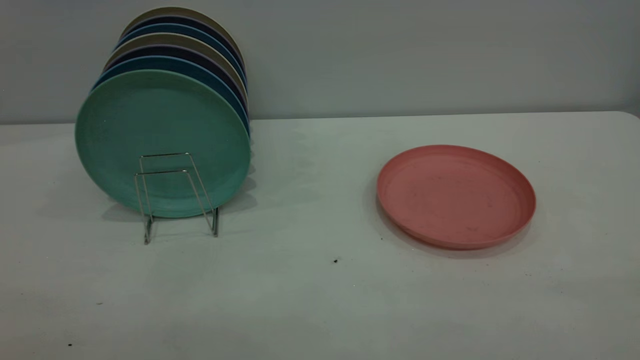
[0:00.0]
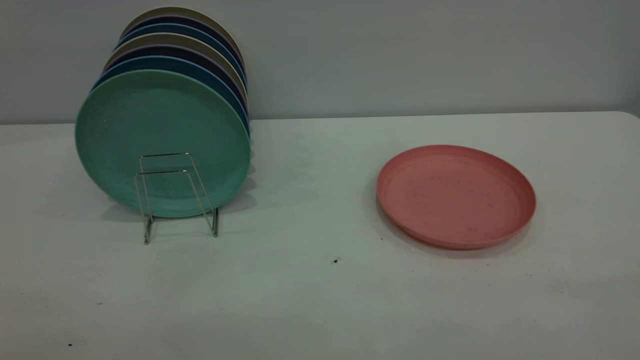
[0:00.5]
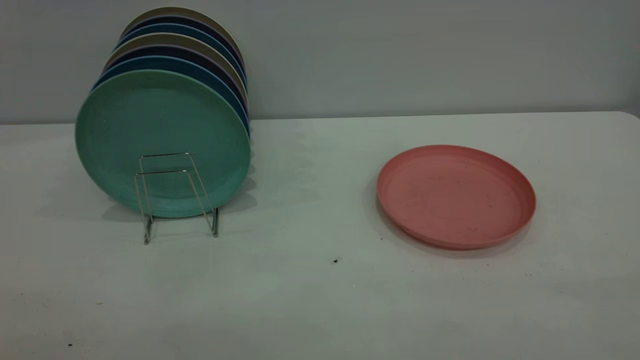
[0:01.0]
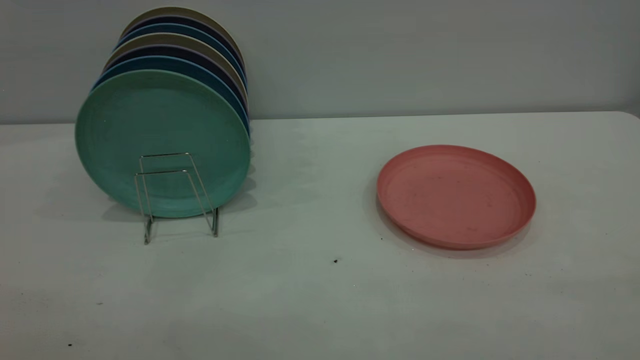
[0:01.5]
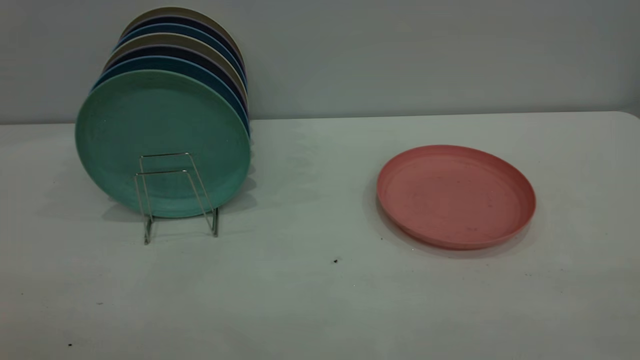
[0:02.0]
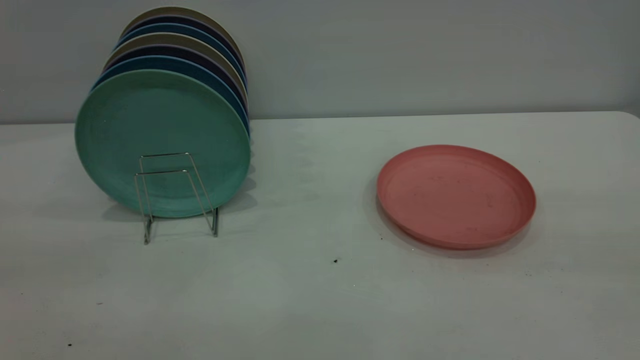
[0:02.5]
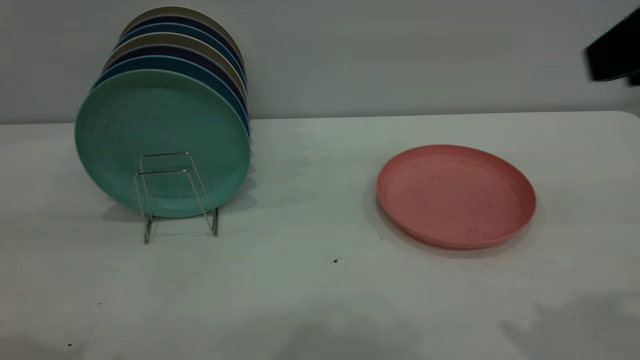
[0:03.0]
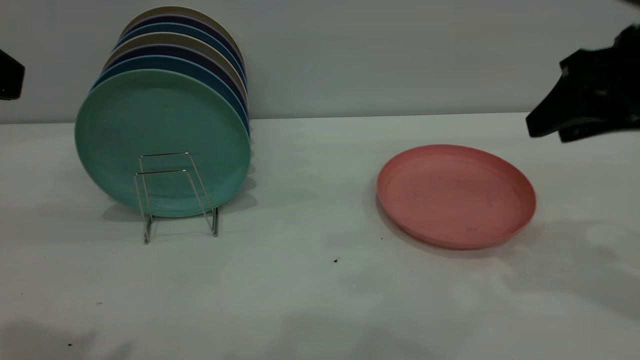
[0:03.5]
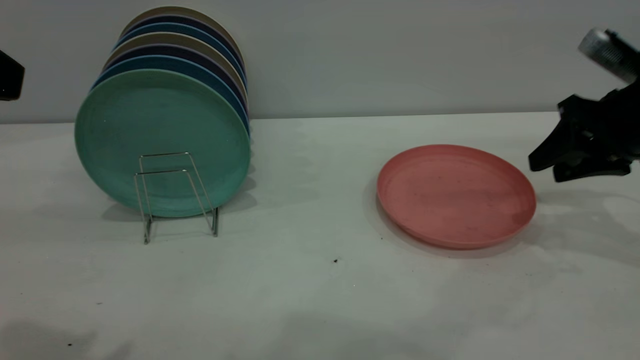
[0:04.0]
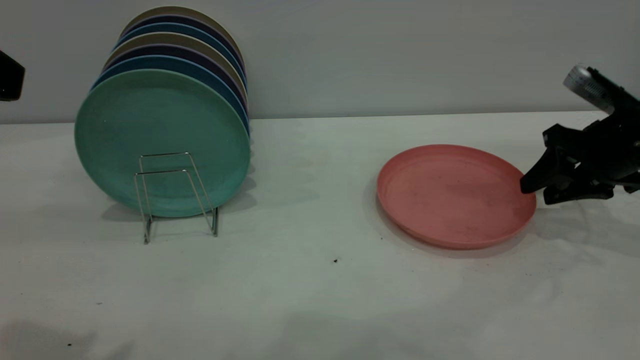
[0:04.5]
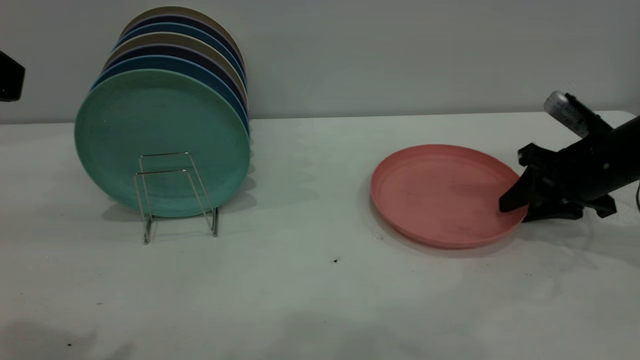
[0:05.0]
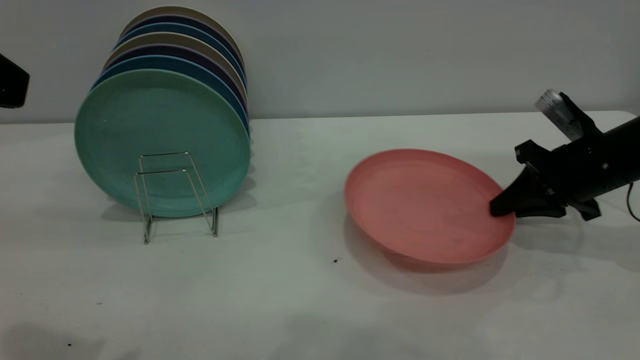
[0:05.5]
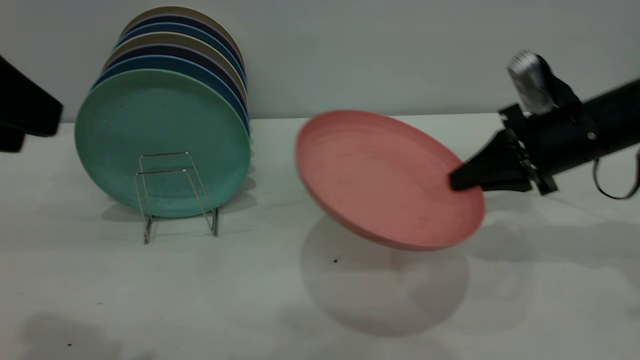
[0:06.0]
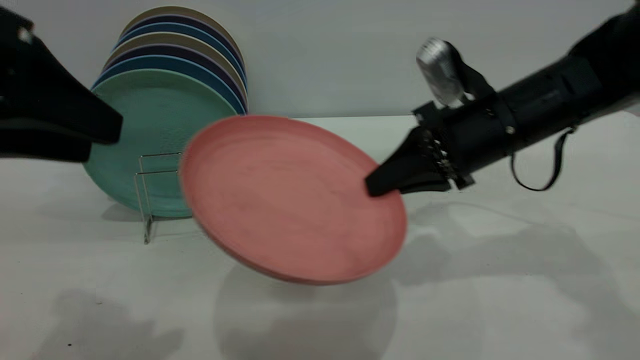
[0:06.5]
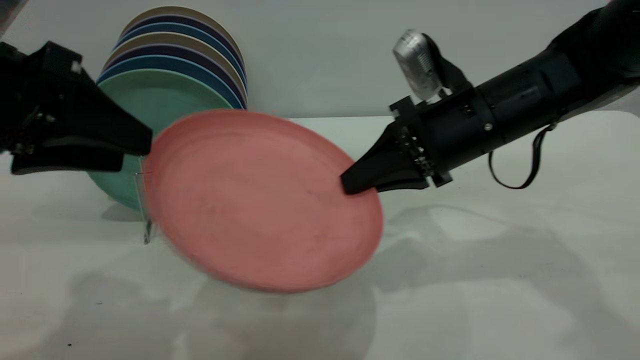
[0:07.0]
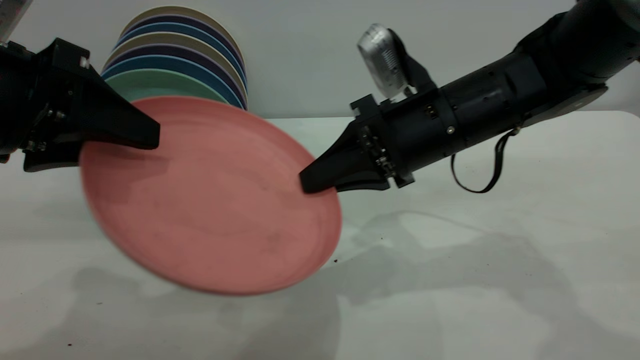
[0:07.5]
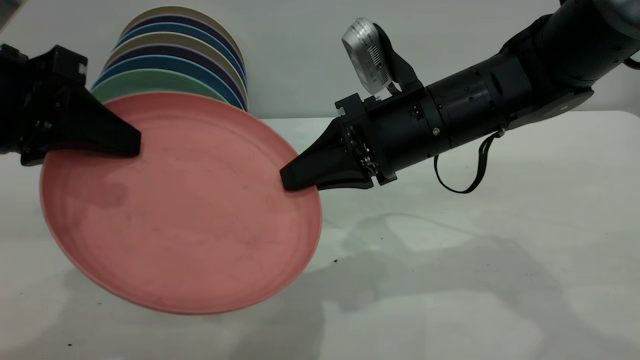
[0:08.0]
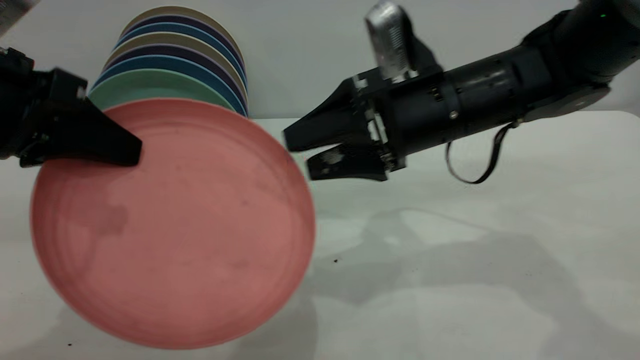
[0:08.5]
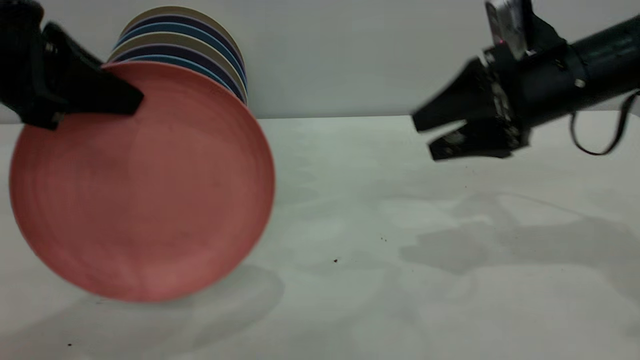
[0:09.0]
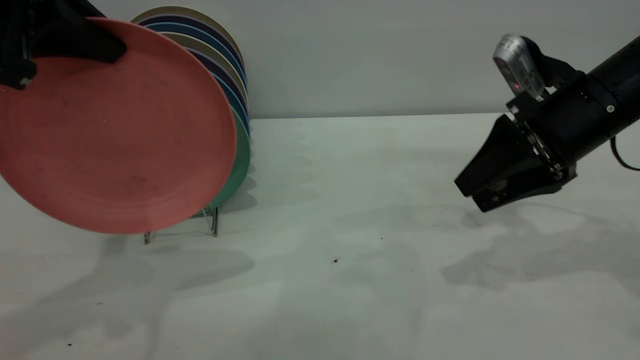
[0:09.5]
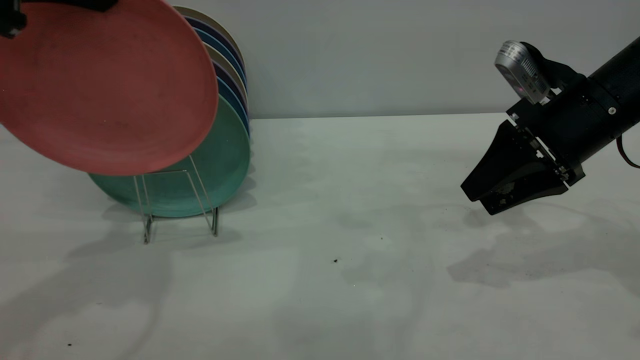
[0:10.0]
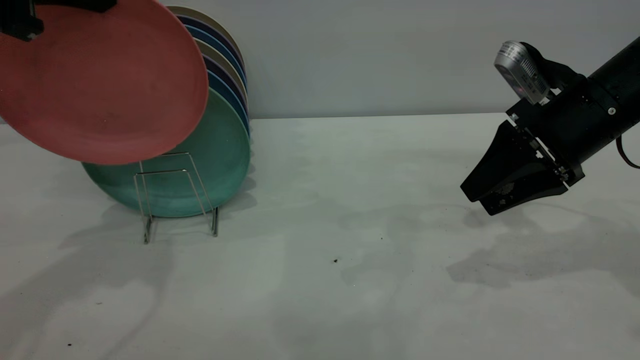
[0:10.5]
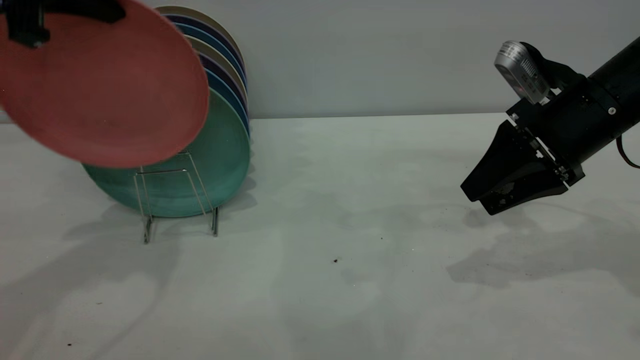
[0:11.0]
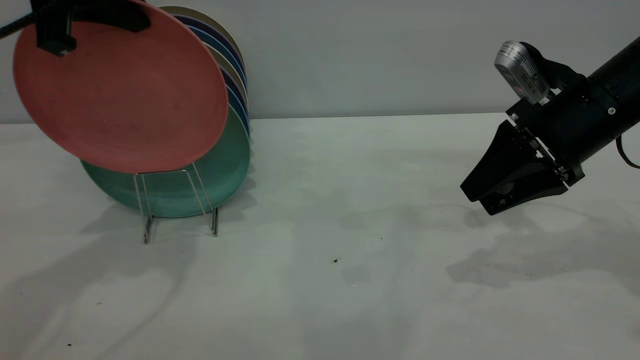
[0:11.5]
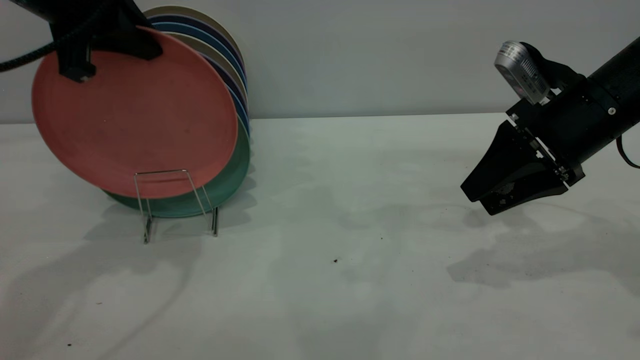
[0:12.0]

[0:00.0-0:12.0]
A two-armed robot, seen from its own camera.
Task of the whole recording: the right gripper grasp the pink plate, the right gripper pass the pink plate to the left gripper, and the left gripper place the pink plate on the plate rack.
Step, 0:00.0 to 0:05.5: Pick up the plate with the right gripper.
Step, 0:06.0 to 0:08.5: Pass the plate from the right gripper to the left gripper.
0:02.0 to 0:04.0: The right gripper moves forward and downward, about 40 cm.
0:04.0 to 0:06.0: The right gripper heads to the left, covering some 10 cm, and closes.
0:06.0 to 0:08.0: The right gripper goes about 15 cm to the left. Meanwhile the left gripper moves downward and forward, about 10 cm, and closes its fingers.
0:08.0 to 0:10.0: The left gripper travels upward and forward by some 15 cm. Meanwhile the right gripper heads to the right, covering roughly 15 cm, and opens up.
0:10.0 to 0:12.0: The left gripper shifts by some 5 cm.

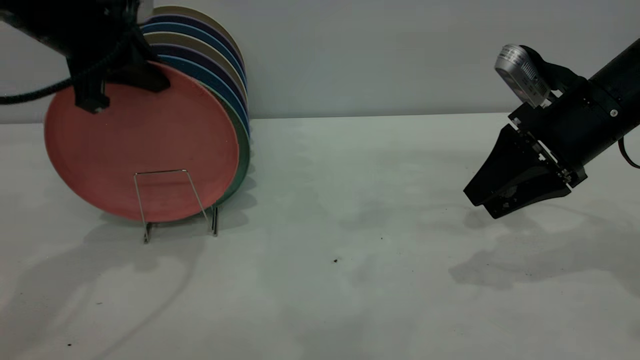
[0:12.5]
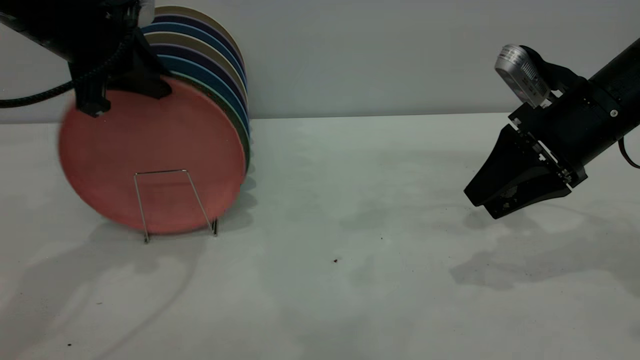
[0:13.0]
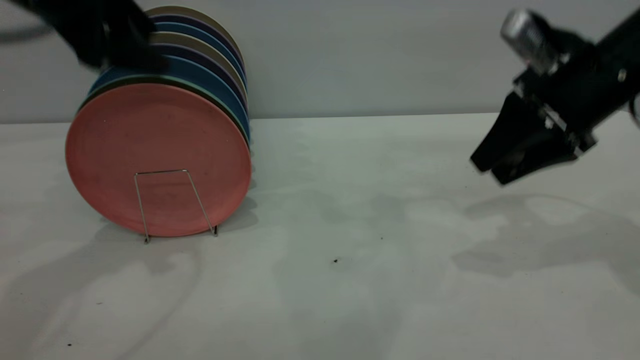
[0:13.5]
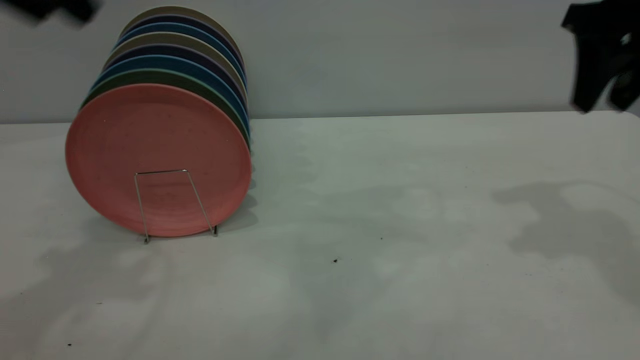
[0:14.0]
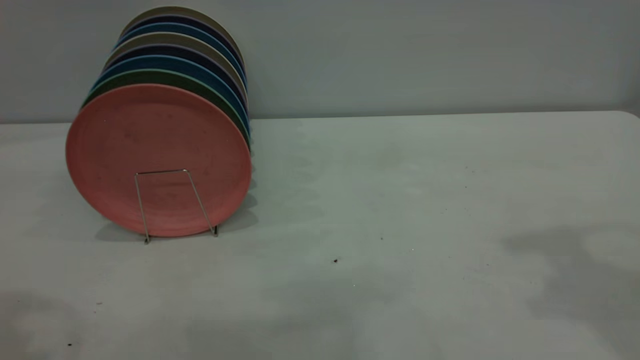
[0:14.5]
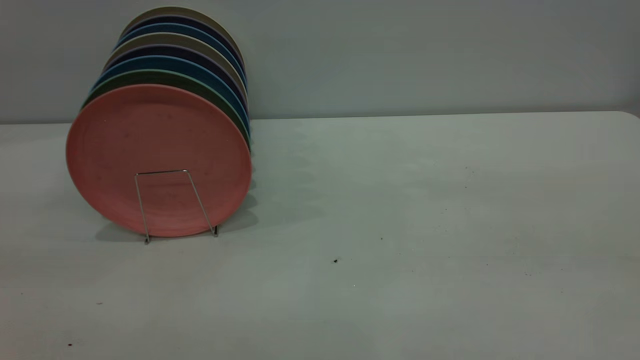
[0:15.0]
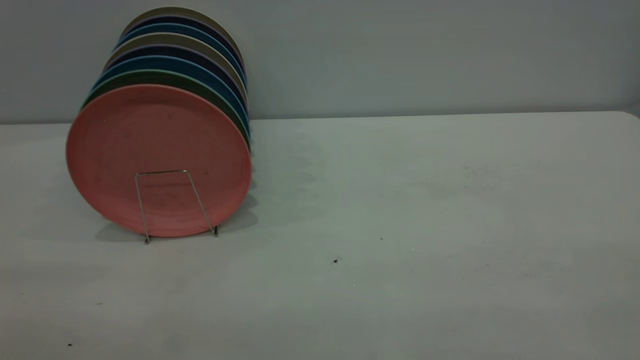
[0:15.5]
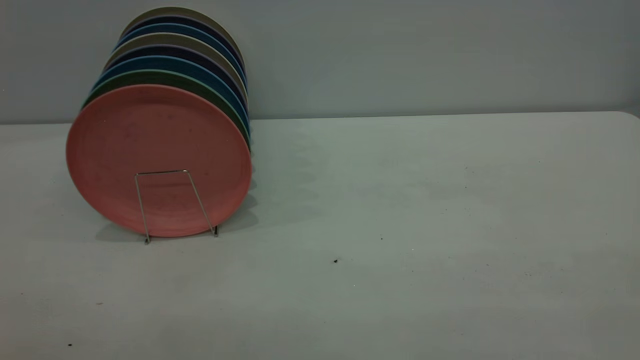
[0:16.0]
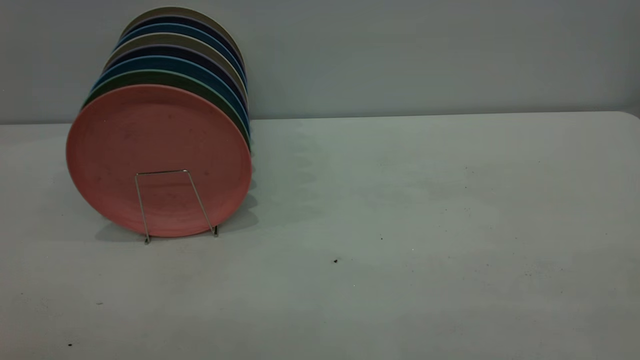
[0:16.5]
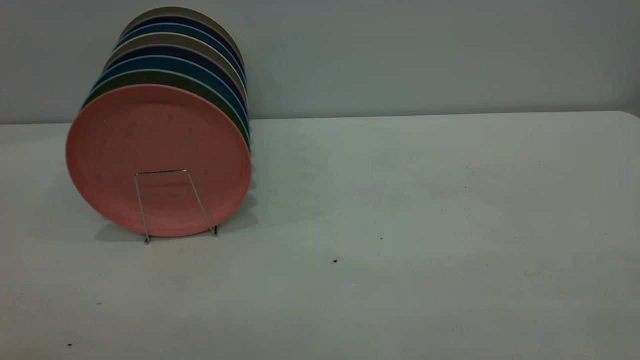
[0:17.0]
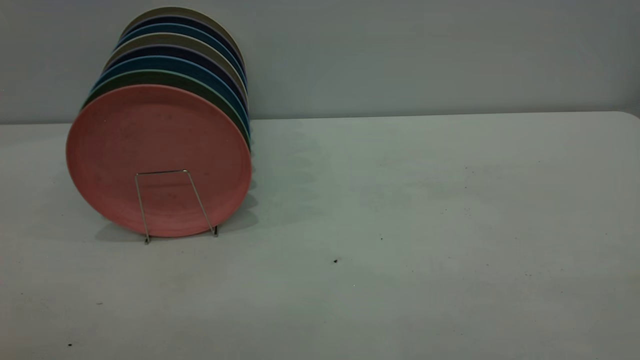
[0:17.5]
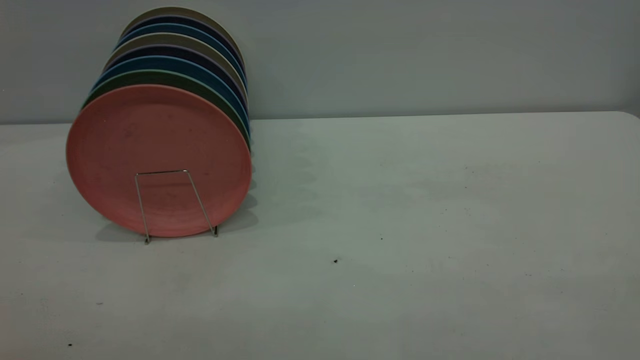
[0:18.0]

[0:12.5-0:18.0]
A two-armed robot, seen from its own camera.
Task of the whole recording: the right gripper grasp the pink plate, the right gripper pass the pink plate to the left gripper, and the left gripper place the pink plate on the plate rack.
0:12.5 to 0:14.5: The right gripper travels upward by about 25 cm, while the left gripper travels backward and upward by some 25 cm, and opens its fingers.

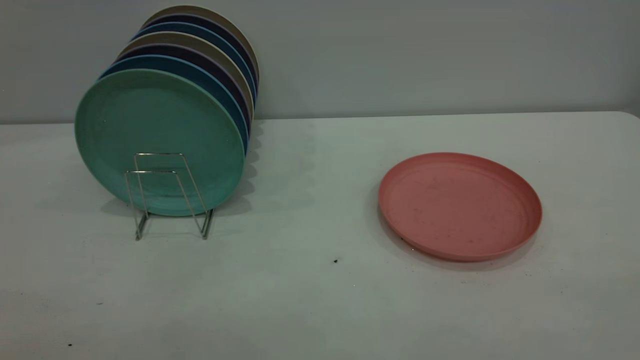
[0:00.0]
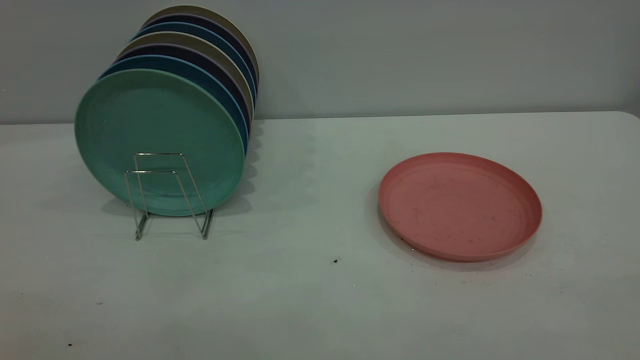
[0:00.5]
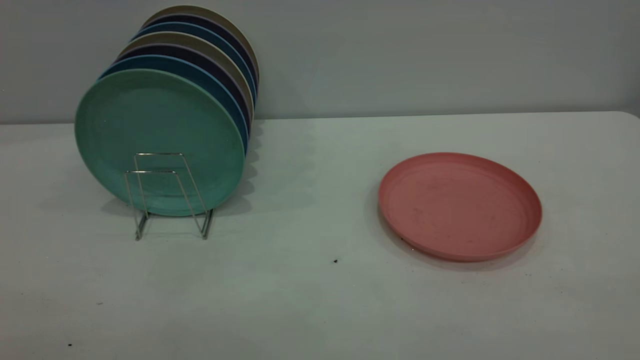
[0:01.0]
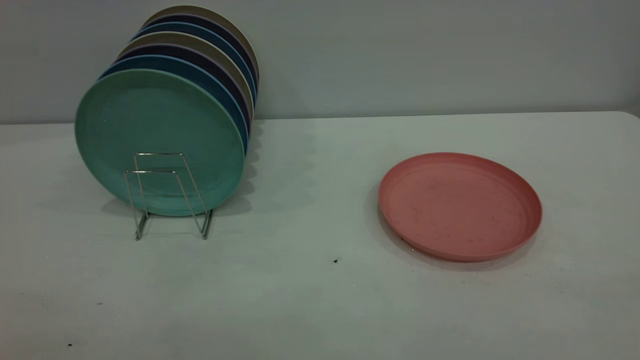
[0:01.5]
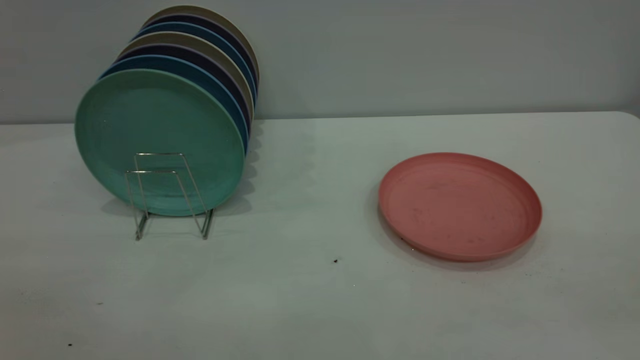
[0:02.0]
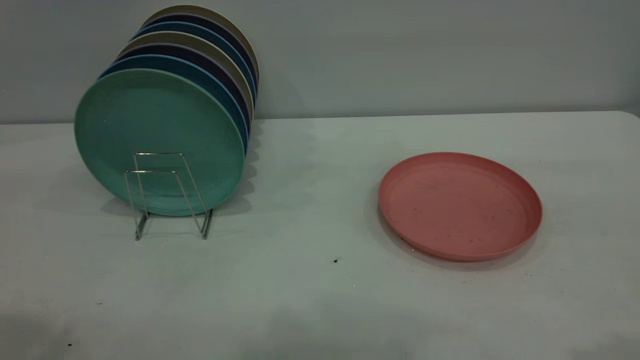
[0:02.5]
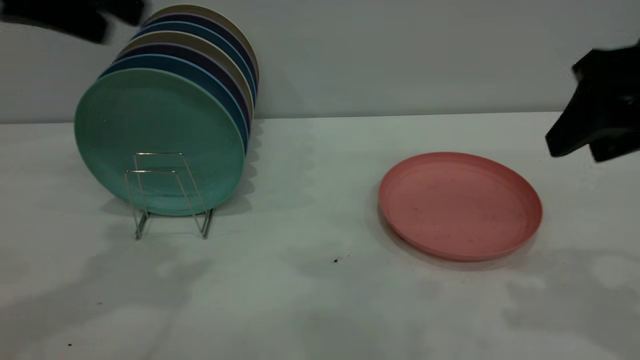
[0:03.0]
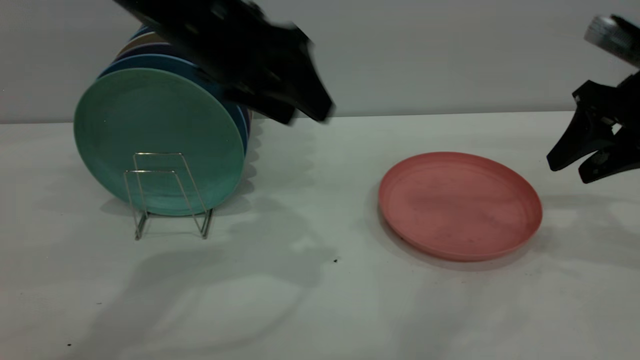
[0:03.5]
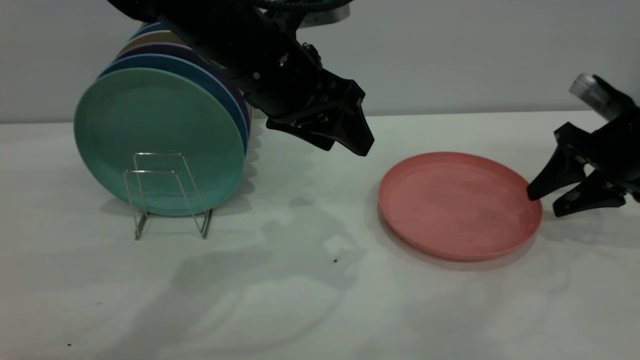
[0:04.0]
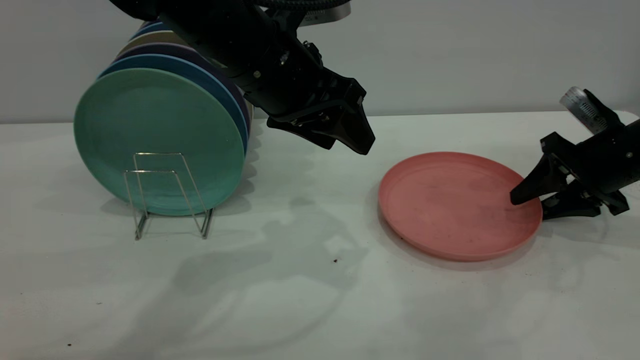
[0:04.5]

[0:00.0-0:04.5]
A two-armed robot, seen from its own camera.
Task of the whole recording: the right gripper grasp the pink plate, the right gripper pass the pink plate to the left gripper, and the left gripper place the pink plate on the plate rack.
0:02.0 to 0:04.5: The left gripper moves forward, to the right and downward, roughly 50 cm, while the right gripper is displaced forward and downward by roughly 50 cm.
